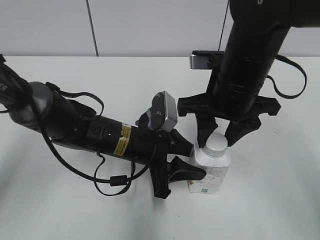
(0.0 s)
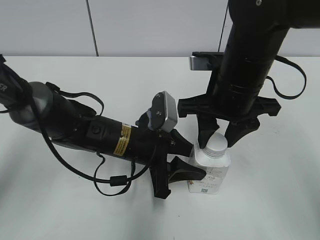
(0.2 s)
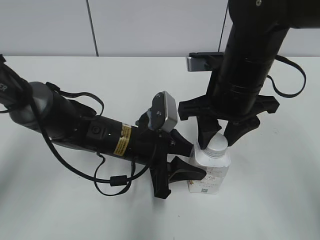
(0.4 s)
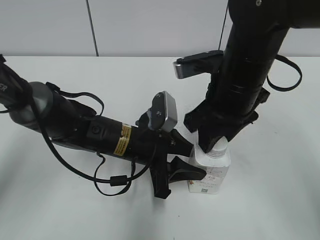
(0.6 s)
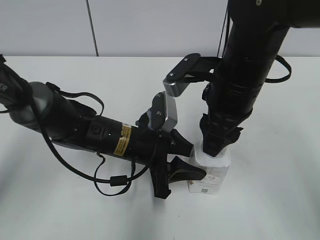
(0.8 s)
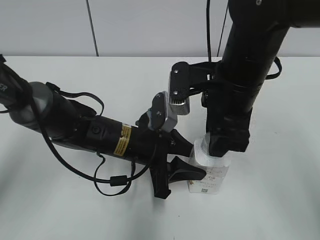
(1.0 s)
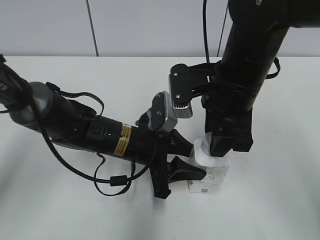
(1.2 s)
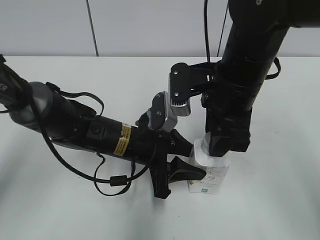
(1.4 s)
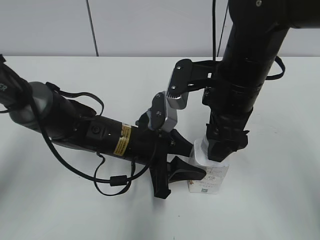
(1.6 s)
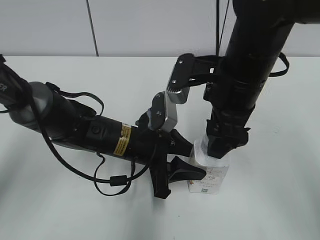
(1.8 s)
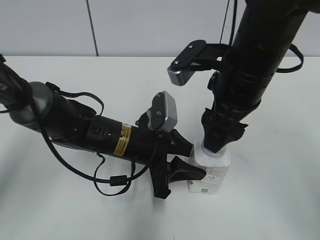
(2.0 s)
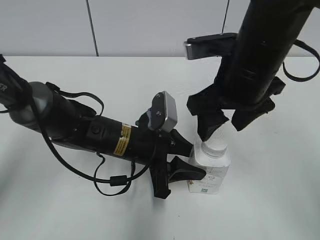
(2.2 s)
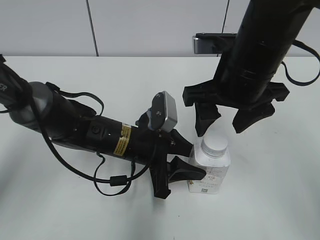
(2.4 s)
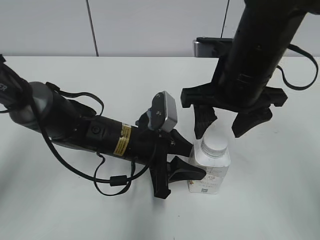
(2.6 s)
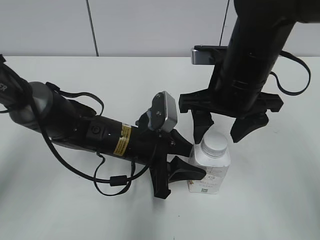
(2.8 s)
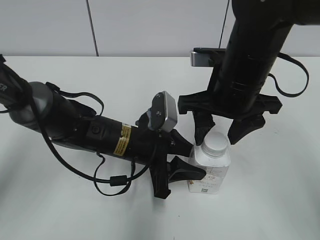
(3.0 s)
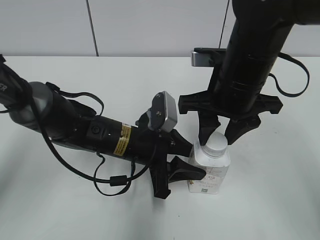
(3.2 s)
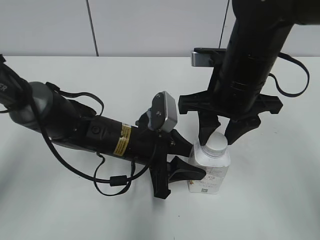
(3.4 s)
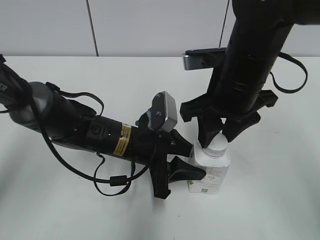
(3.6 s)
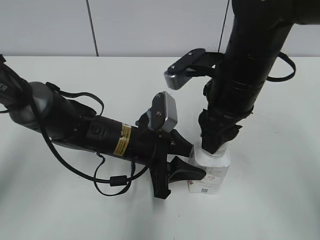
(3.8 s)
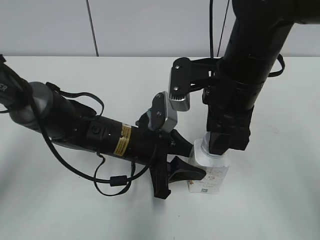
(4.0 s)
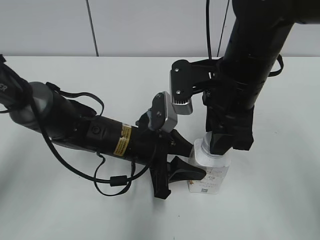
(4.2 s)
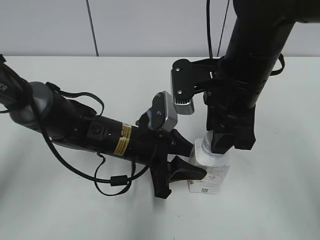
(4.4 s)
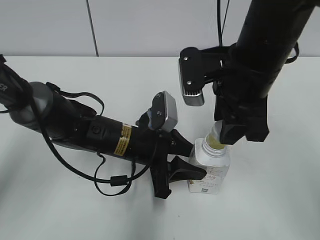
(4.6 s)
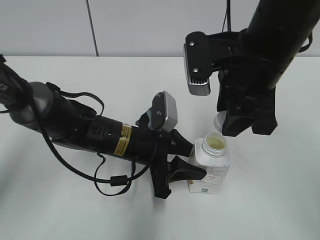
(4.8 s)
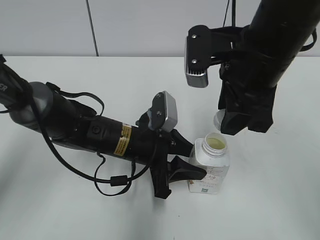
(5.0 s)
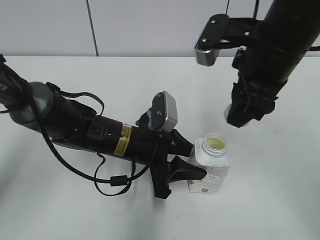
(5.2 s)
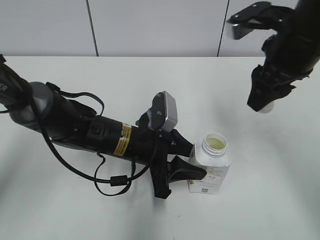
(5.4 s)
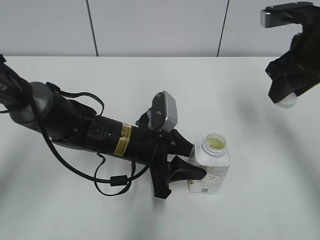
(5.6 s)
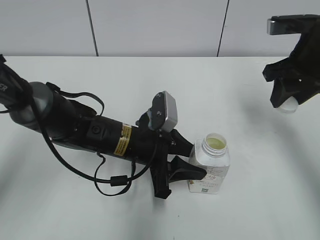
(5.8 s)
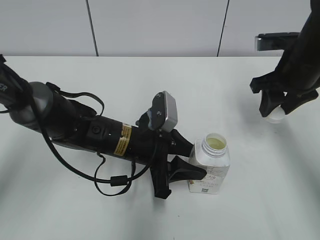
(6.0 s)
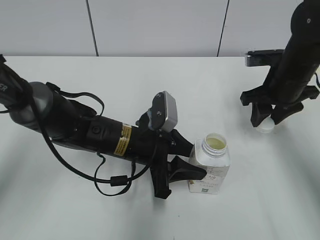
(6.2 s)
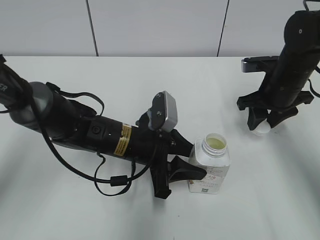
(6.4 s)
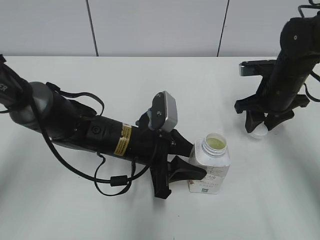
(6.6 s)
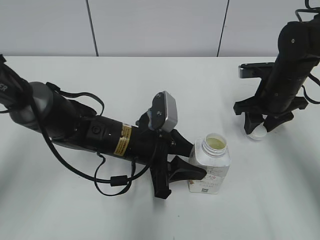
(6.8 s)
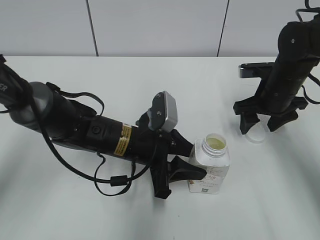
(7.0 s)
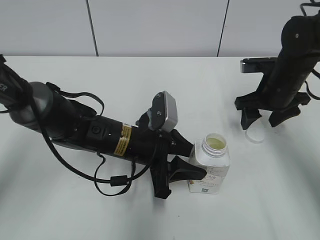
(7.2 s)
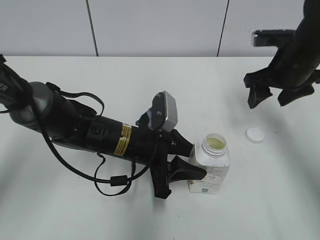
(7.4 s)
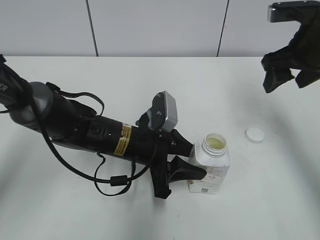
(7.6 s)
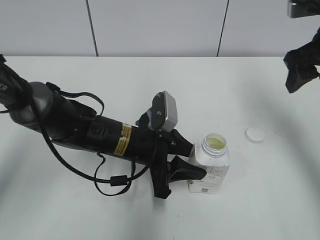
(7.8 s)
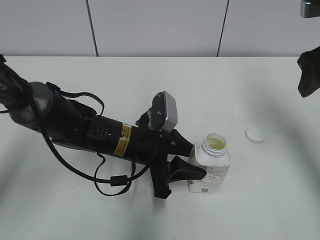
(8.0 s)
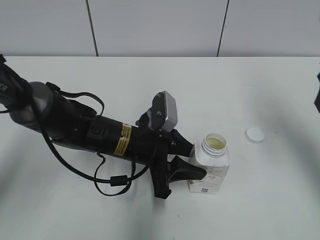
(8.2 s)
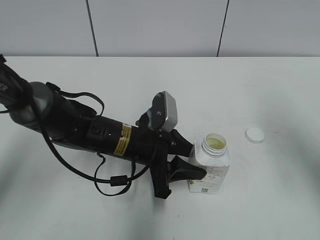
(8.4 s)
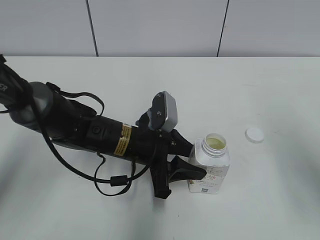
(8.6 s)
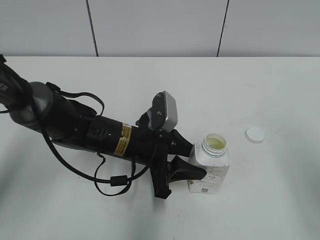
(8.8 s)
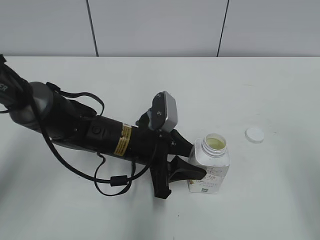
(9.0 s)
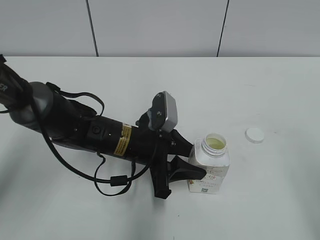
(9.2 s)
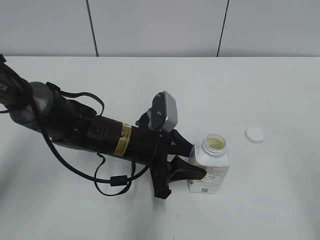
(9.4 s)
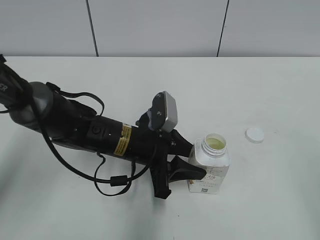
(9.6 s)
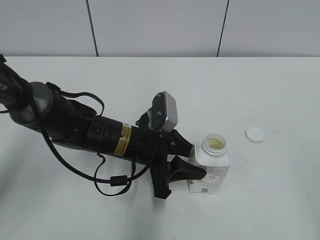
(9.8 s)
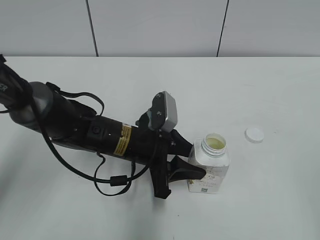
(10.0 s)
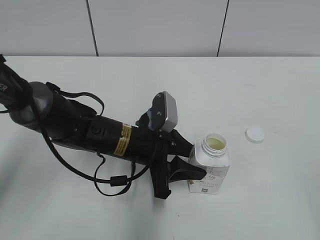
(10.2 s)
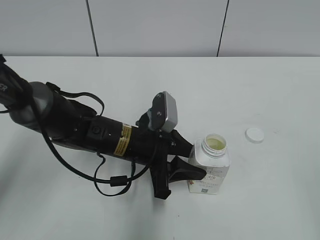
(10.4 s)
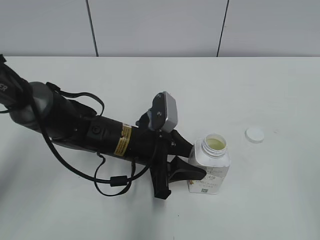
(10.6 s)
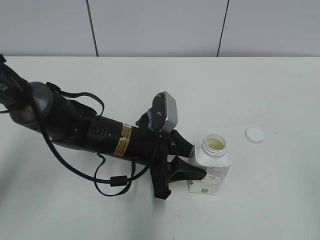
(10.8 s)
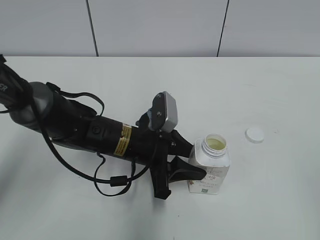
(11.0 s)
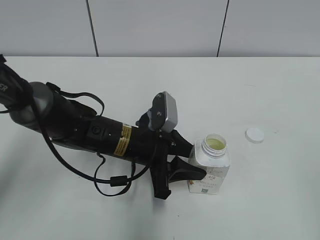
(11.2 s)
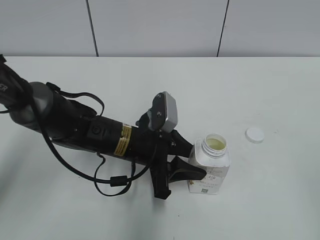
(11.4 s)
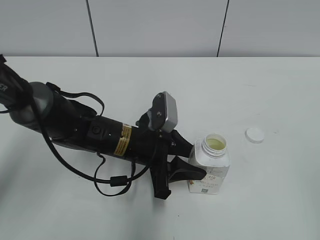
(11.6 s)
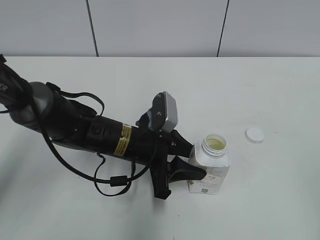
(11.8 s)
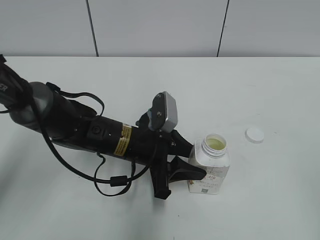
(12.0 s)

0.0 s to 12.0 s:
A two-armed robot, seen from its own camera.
Step, 0.0 to 4.6 s: Unscrew the bottle cap with the right gripper while holding the bottle with the left gripper.
Step, 4.8 to 7.0 s: Place the bottle cap on the table with the right gripper.
0.0 to 1.6 s: The right gripper opens its fingers.
3.0 to 4.4 s: The right gripper closes its fingers.
4.4 to 6.0 s: The right gripper shifts about 15 cm to the right and forward.
6.0 to 7.6 s: The right gripper moves about 10 cm downward and comes back, and opens.
7.6 to 9.0 s: The right gripper moves backward, approximately 25 cm.
10.4 to 12.0 s: Both grippers stay put.

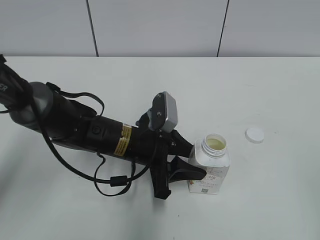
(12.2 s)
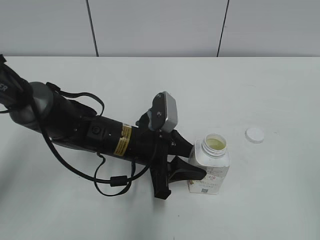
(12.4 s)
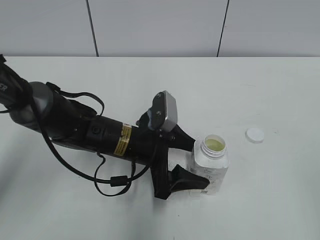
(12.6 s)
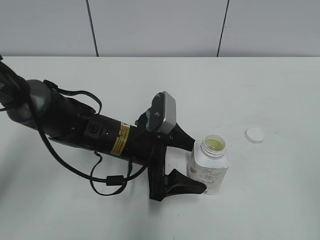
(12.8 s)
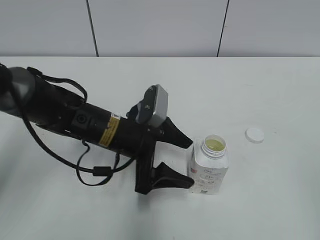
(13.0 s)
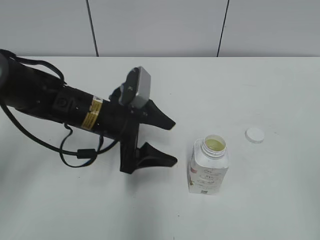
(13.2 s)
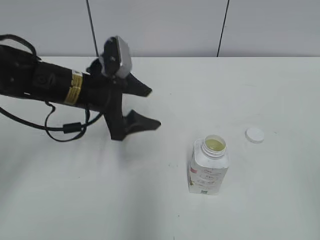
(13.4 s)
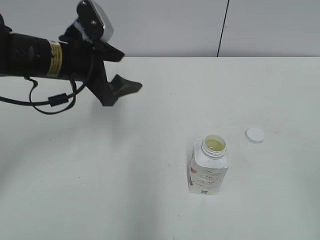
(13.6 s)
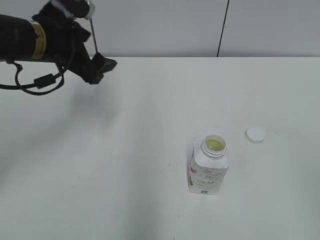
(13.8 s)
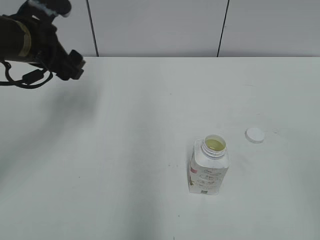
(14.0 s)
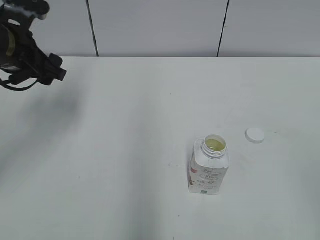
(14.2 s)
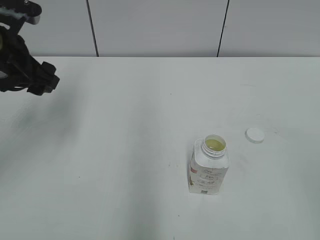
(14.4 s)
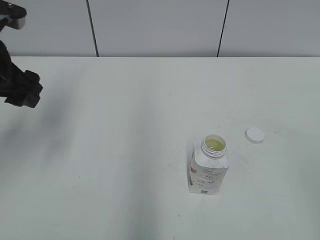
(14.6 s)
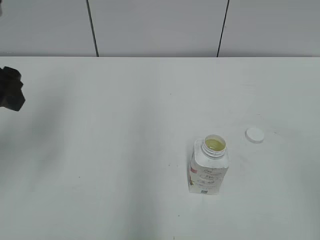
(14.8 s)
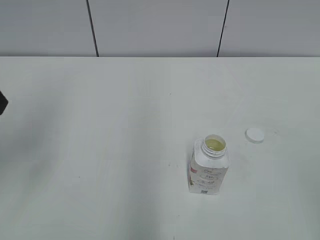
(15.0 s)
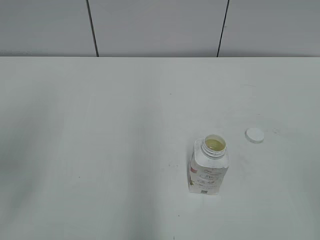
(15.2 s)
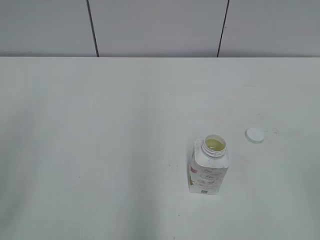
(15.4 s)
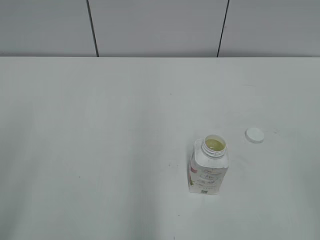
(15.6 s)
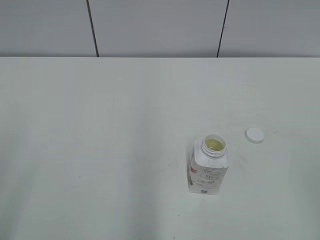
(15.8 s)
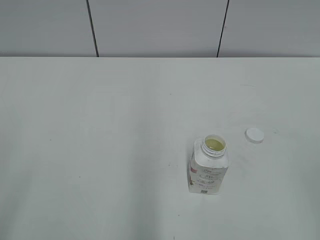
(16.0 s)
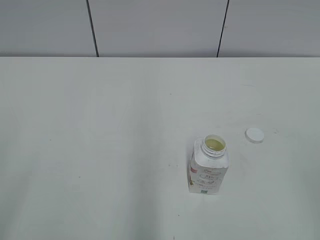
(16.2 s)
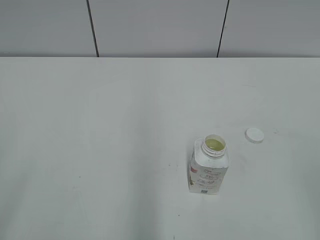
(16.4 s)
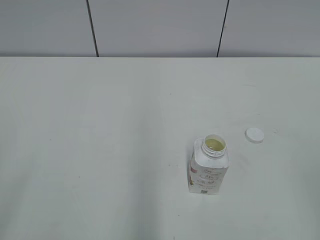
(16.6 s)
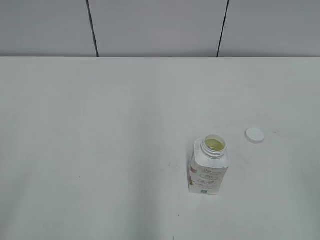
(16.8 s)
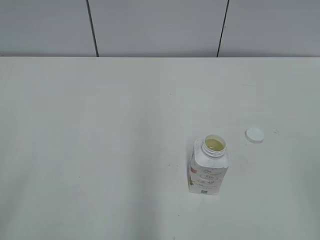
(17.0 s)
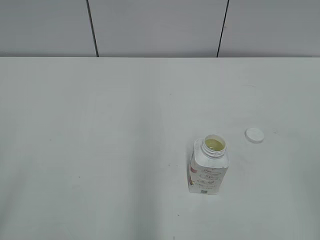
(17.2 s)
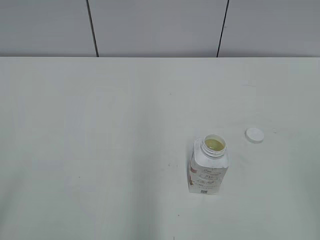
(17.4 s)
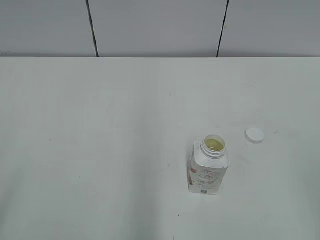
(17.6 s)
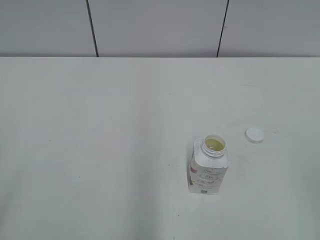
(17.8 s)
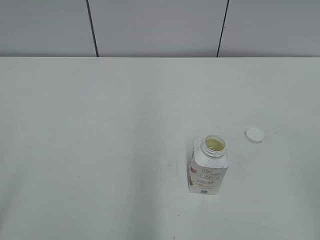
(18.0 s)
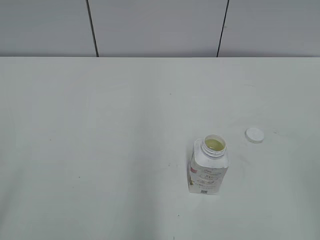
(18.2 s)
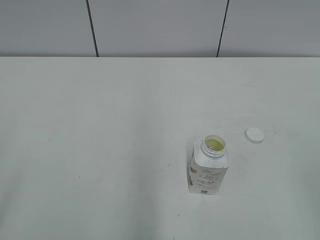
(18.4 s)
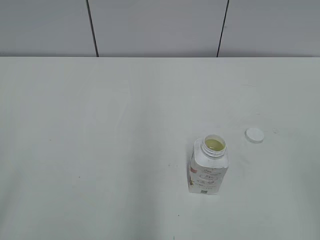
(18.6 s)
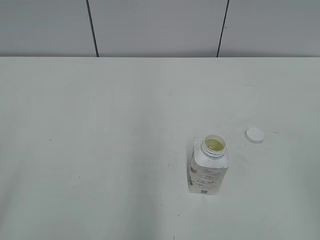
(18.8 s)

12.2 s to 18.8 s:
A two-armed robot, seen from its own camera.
12.2 to 13.8 s: The left gripper shifts roughly 20 cm upward, to the left and forward, and opens up.
13.8 to 15.4 s: The left gripper heads backward and to the left, covering some 25 cm.

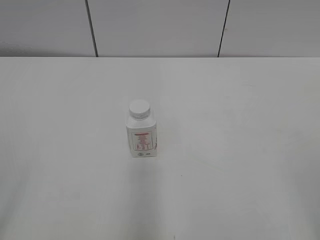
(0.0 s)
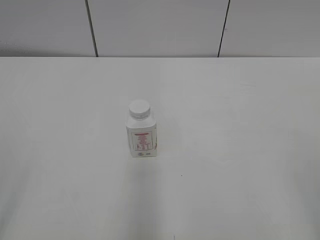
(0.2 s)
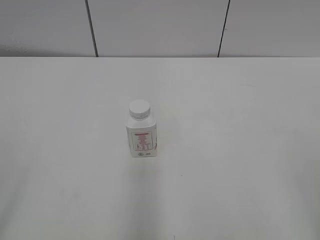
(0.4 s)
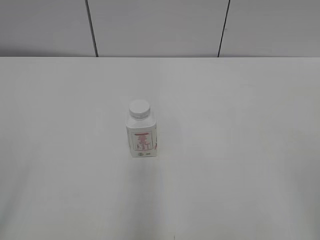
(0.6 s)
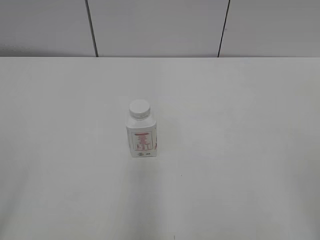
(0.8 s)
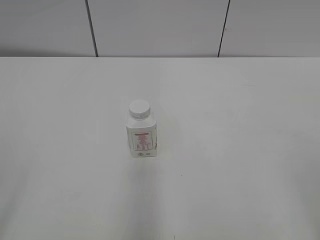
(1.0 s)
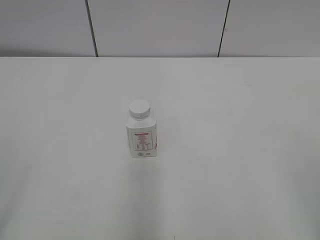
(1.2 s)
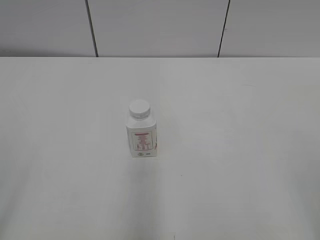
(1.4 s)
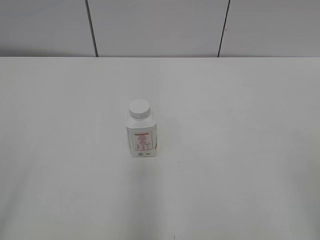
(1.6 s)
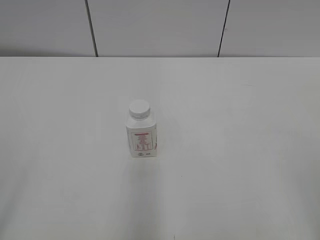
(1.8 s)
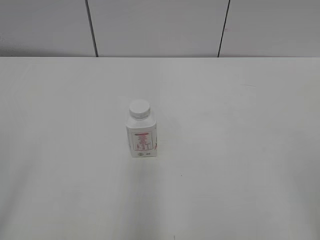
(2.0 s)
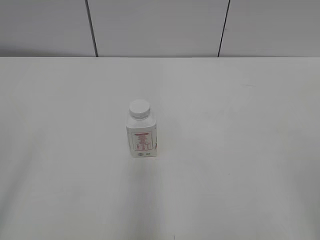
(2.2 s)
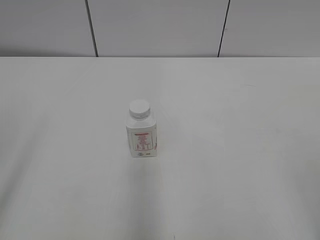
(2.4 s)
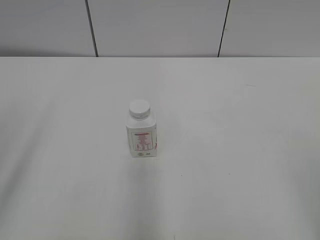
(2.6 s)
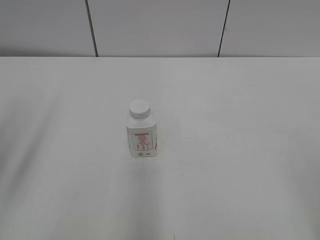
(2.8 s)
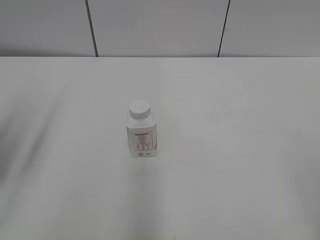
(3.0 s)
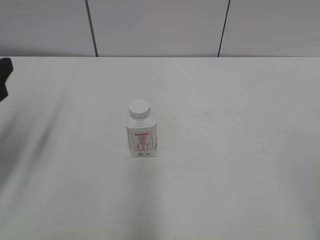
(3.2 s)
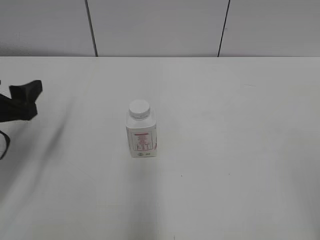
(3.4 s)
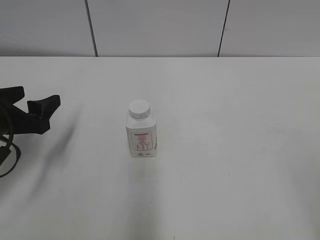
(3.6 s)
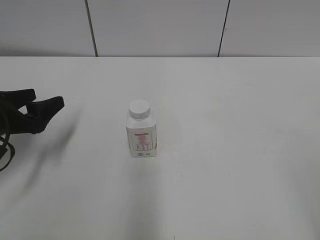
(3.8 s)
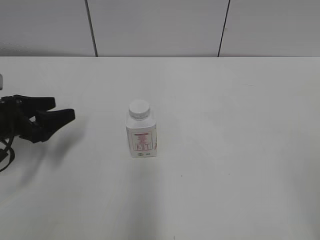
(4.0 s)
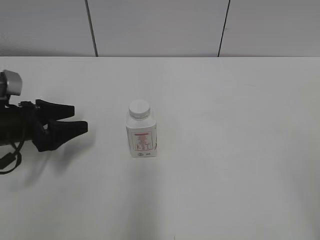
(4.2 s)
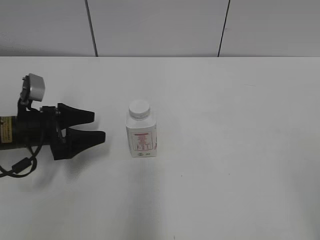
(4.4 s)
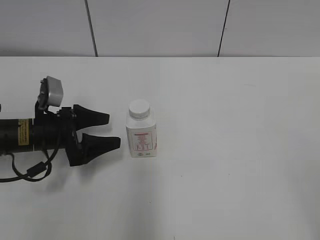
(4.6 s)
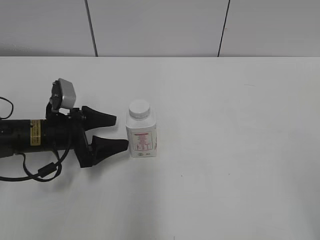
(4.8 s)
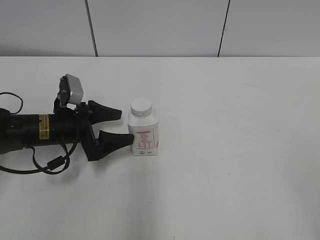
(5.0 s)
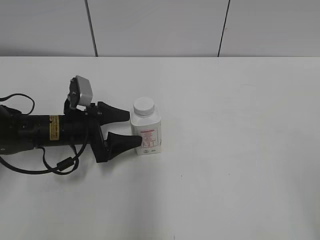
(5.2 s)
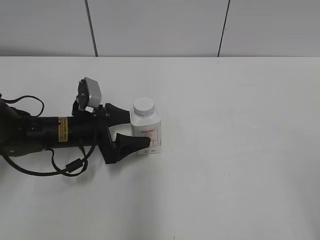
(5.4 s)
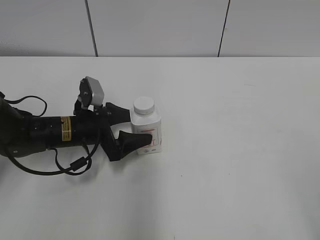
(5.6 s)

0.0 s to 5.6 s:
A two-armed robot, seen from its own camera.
2.8 to 4.2 s: The left gripper is displaced downward and forward by roughly 25 cm.
4.2 to 5.6 s: The left gripper moves to the right, about 10 cm.
